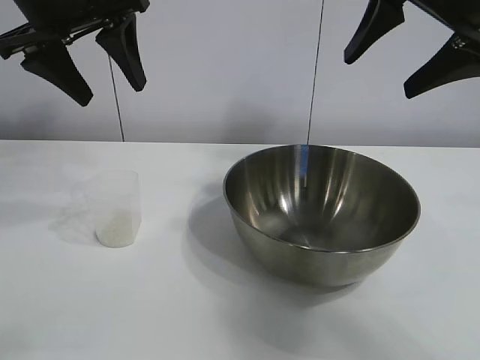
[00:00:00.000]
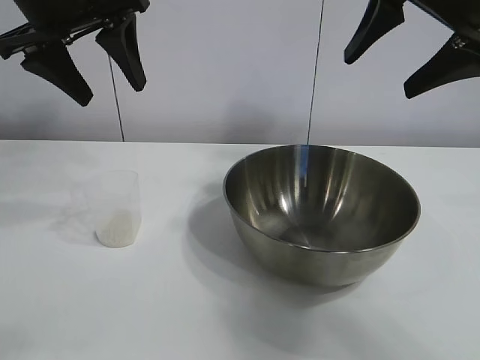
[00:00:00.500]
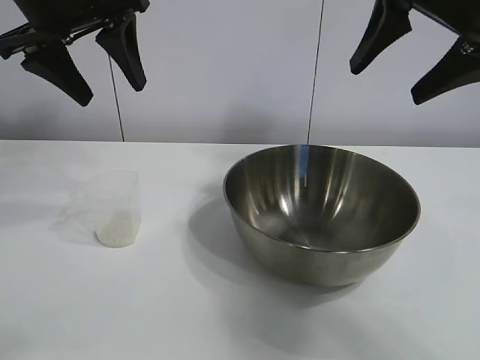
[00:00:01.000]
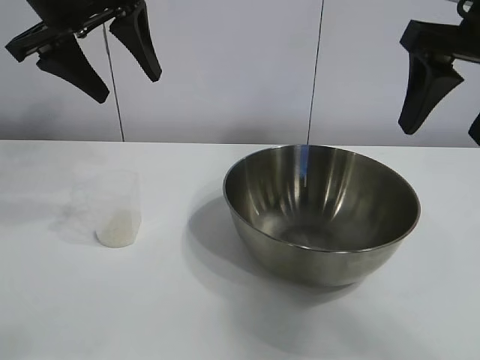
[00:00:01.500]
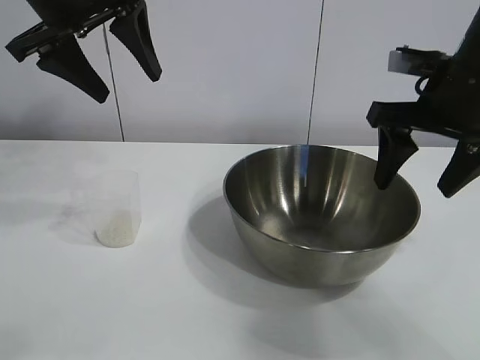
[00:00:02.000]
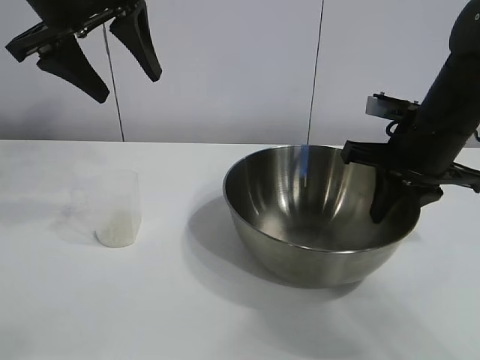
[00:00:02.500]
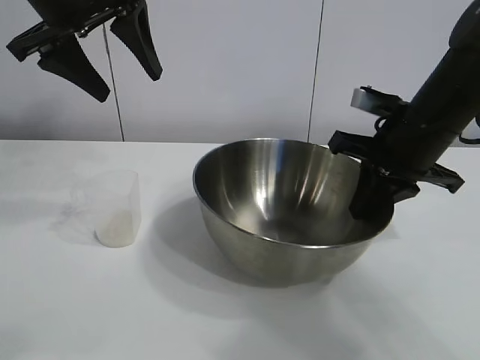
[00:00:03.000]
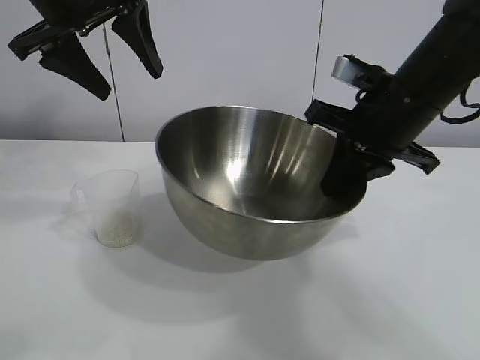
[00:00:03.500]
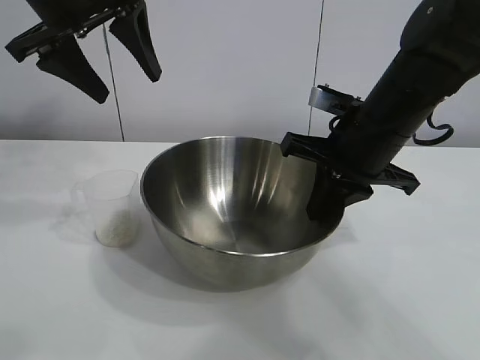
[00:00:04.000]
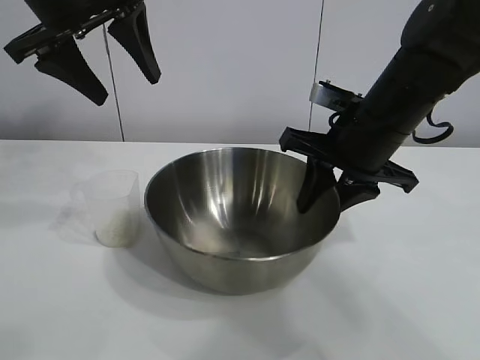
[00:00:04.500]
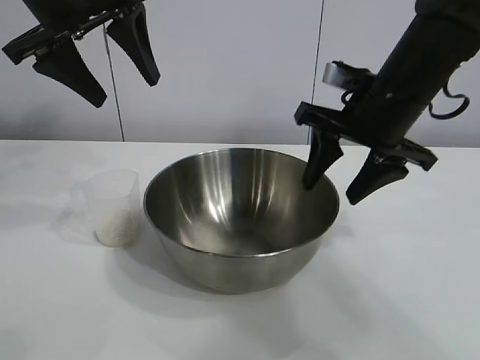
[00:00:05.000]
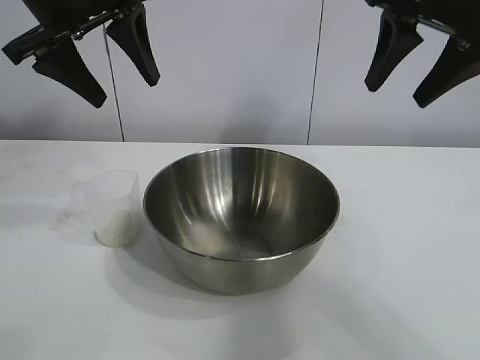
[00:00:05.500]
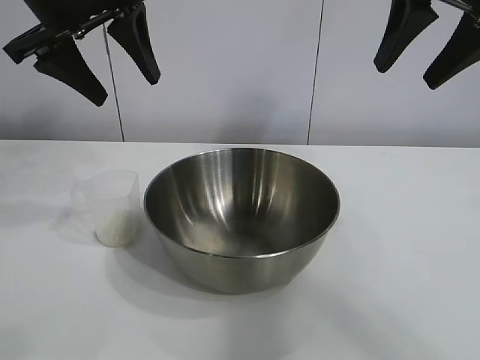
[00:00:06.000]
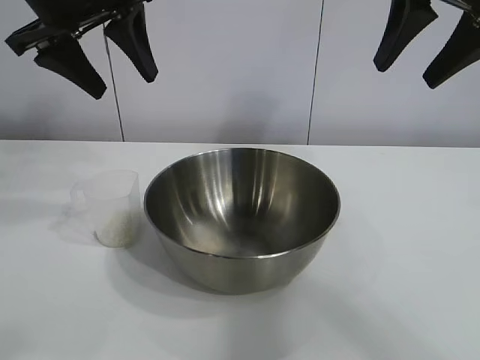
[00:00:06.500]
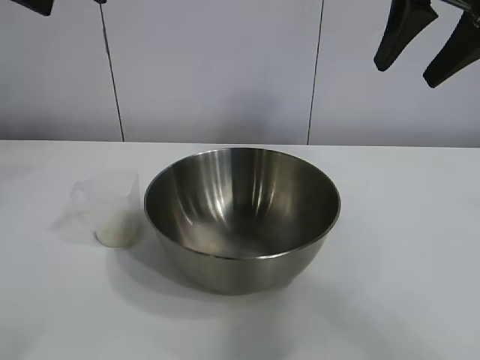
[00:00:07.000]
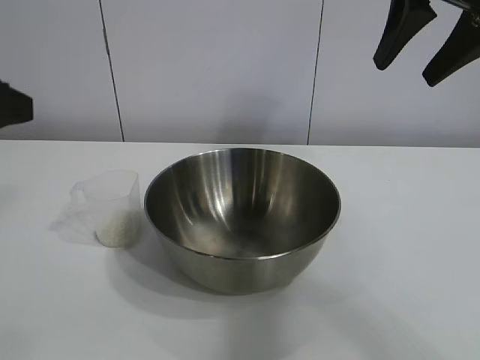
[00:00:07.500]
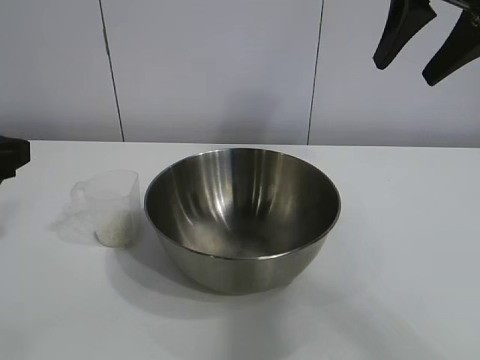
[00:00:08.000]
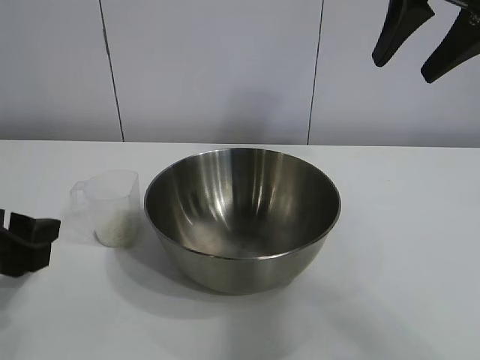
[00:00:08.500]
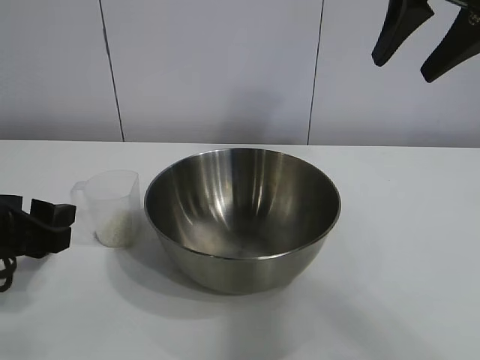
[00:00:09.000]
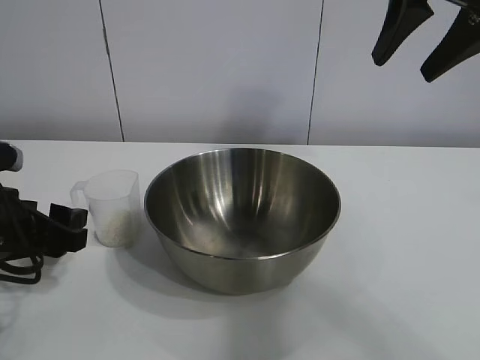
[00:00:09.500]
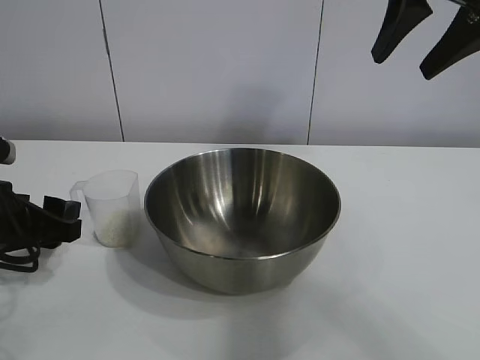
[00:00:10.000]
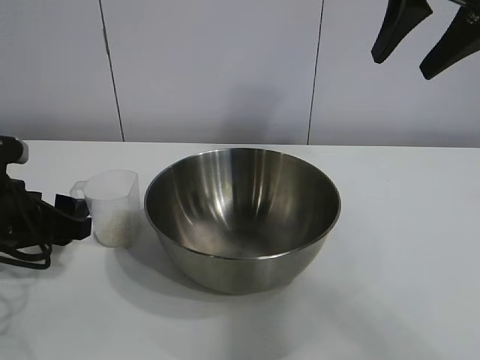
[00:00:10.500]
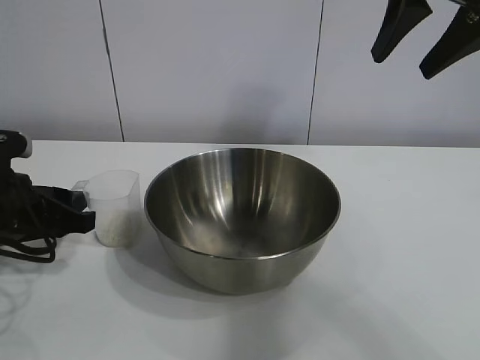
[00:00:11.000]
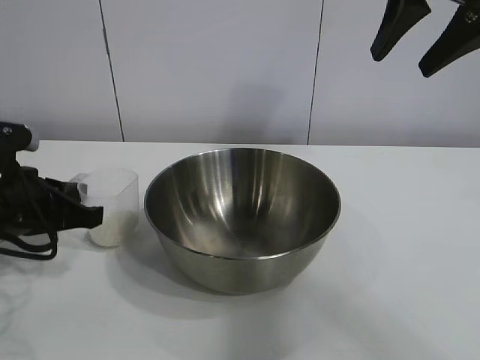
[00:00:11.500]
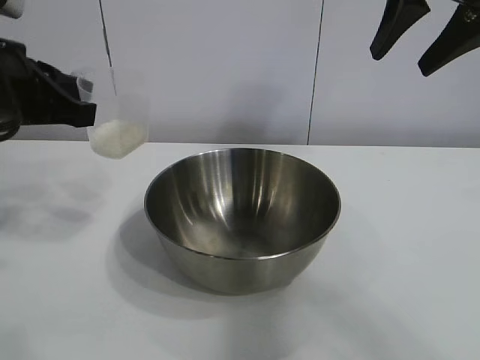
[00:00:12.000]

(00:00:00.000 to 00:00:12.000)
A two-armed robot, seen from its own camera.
Task of the whole recording: the right gripper grasp the rice container and place it in the center of the table, the left gripper grasp the rice scoop and pour the rice into the rice container.
Step, 00:00:01.000 - 00:00:04.500: Move the bowl in the center of view with right gripper.
Step, 00:00:05.000 - 00:00:11.000: Grasp the cup with rice in it with left gripper.

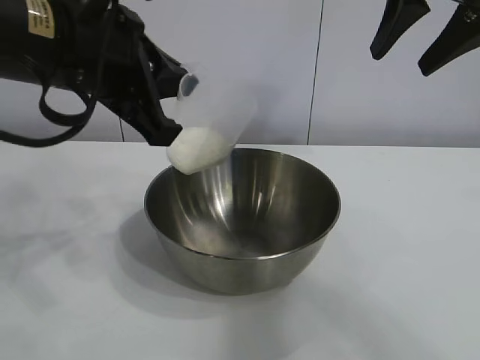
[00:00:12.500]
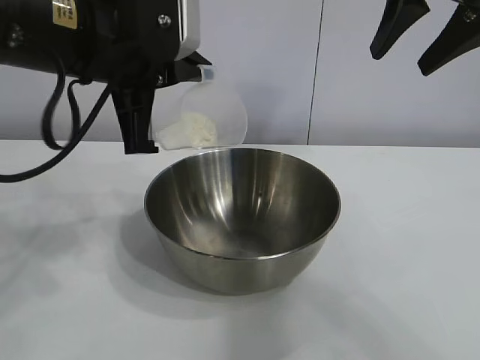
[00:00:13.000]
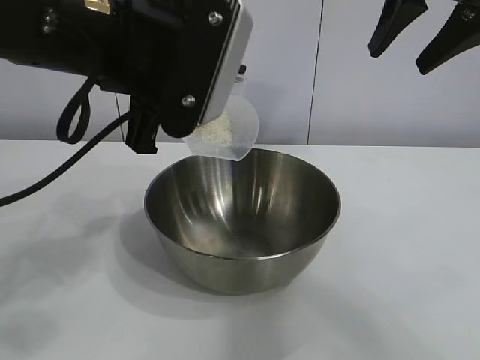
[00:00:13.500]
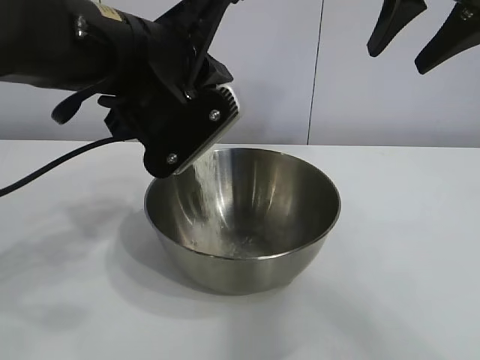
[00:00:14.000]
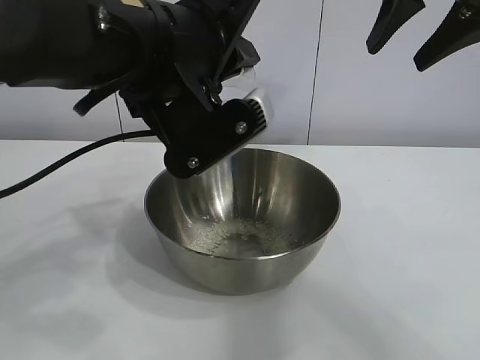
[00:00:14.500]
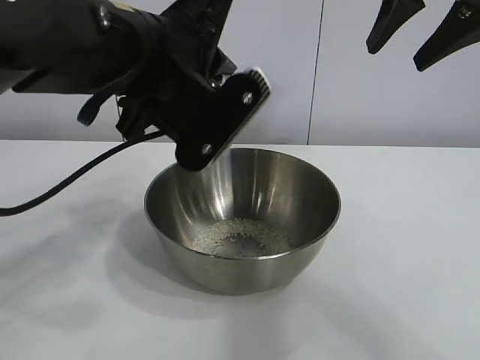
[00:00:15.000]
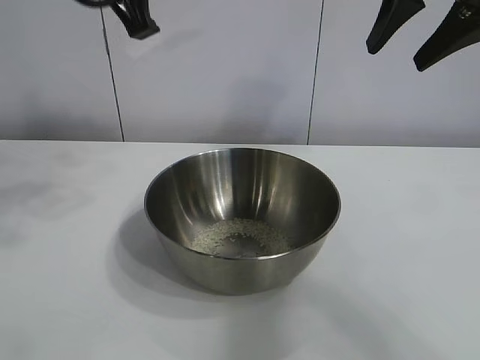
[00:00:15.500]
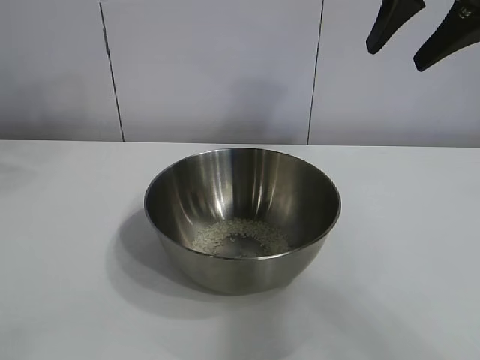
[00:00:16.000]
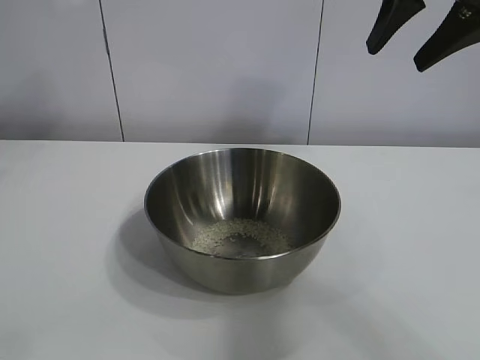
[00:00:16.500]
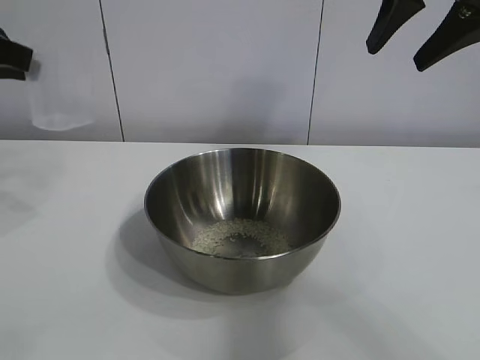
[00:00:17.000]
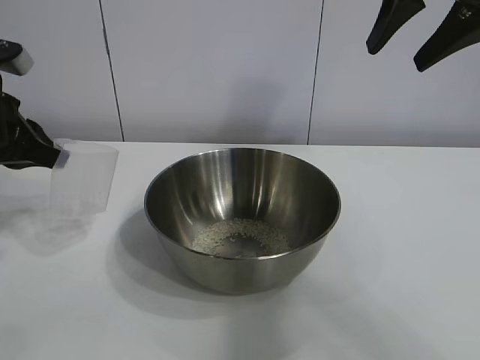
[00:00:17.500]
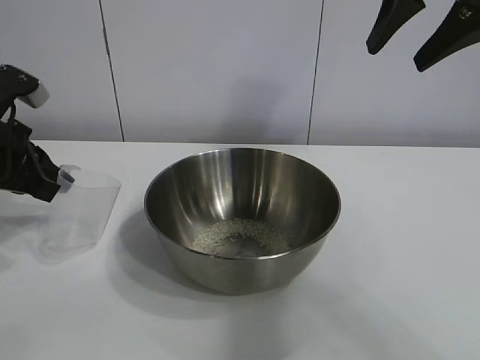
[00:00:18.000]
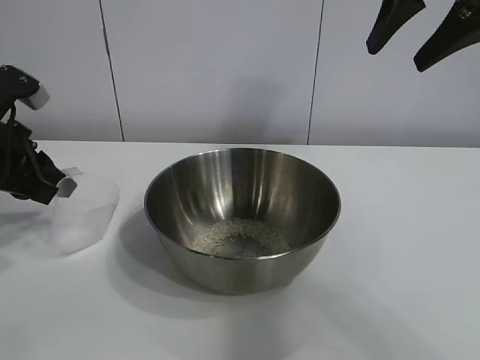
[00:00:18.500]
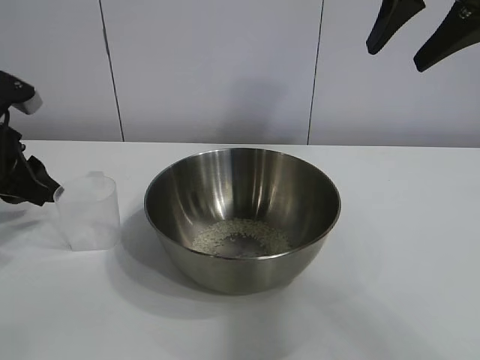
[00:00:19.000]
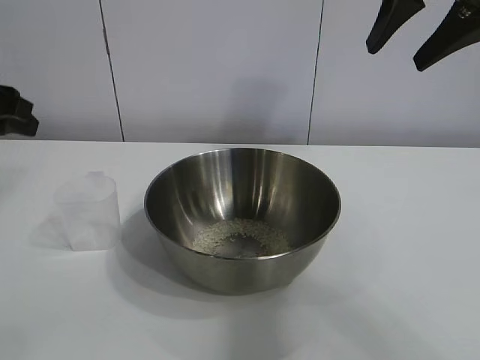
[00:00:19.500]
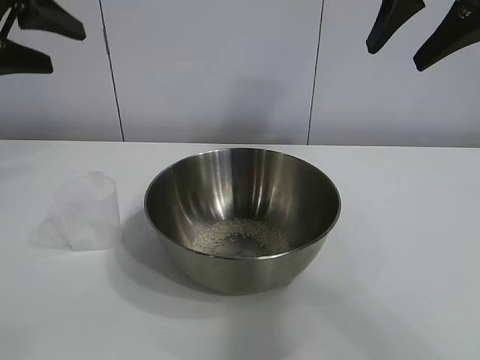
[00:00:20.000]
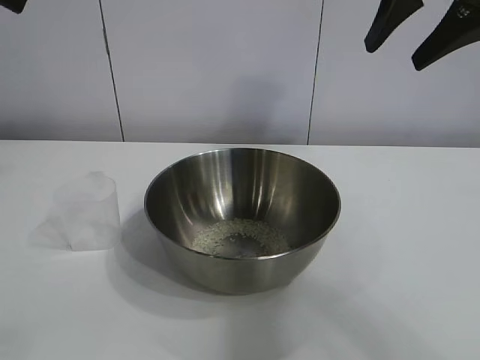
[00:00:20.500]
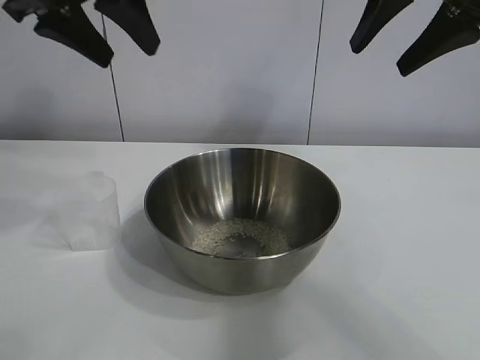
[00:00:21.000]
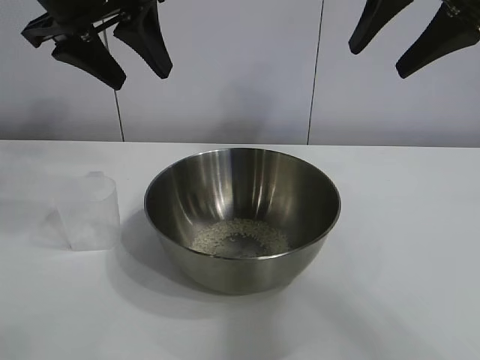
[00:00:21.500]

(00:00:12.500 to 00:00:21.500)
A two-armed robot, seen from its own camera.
Task of the whole recording: the right gripper grasp the rice container and place it in the center of the table, the left gripper grasp the rice scoop and pour the rice into the rice container.
Step, 00:00:12.500 - 00:00:14.500: Pour the rice from the cup into the bowl with the left gripper.
Step, 00:00:15.000 - 00:00:18.500: Place the cup on the table with the left gripper.

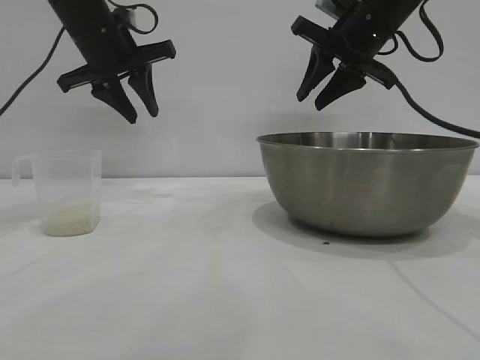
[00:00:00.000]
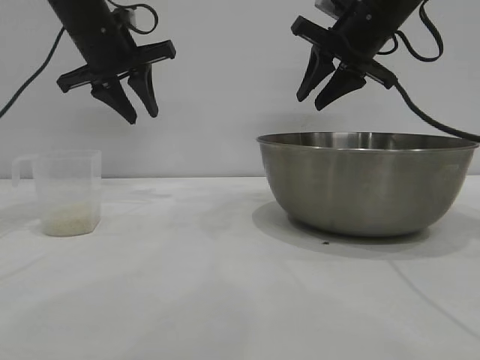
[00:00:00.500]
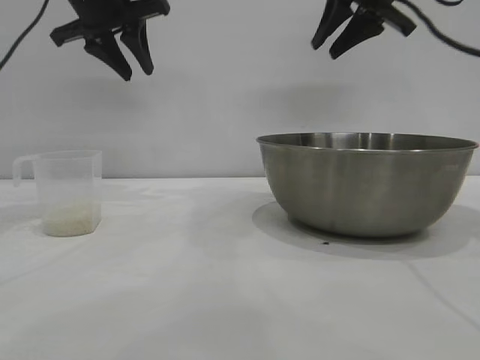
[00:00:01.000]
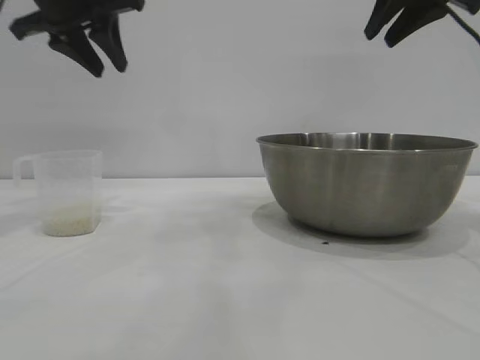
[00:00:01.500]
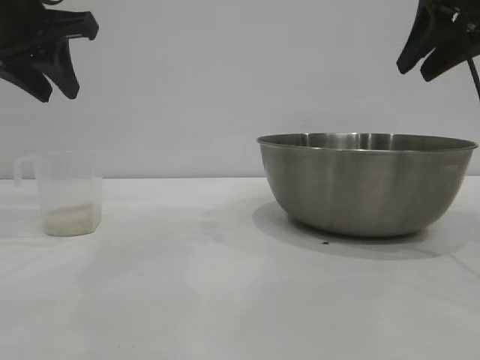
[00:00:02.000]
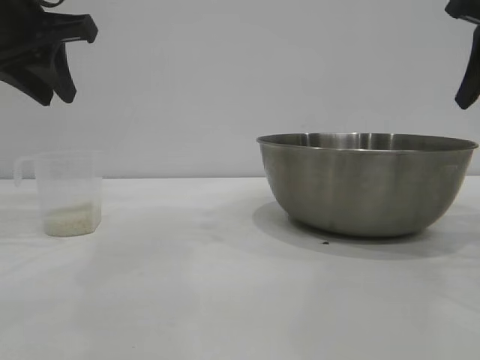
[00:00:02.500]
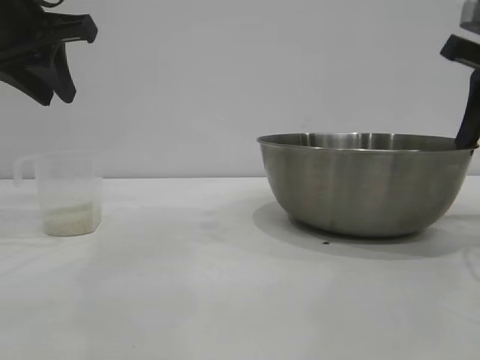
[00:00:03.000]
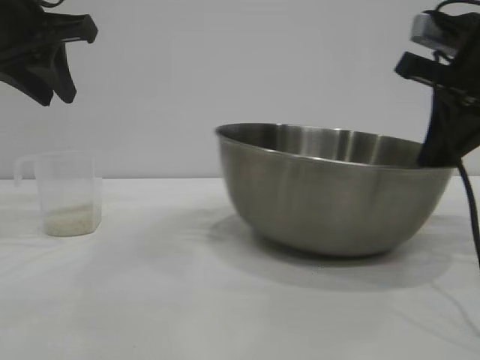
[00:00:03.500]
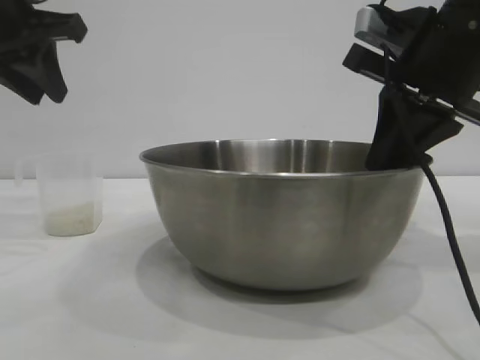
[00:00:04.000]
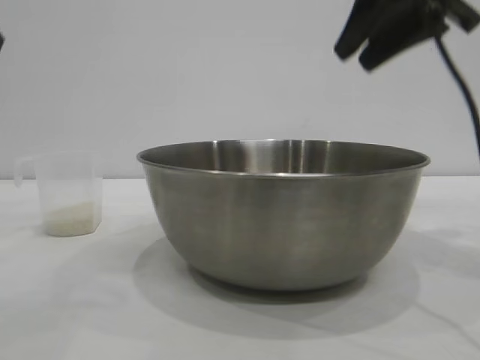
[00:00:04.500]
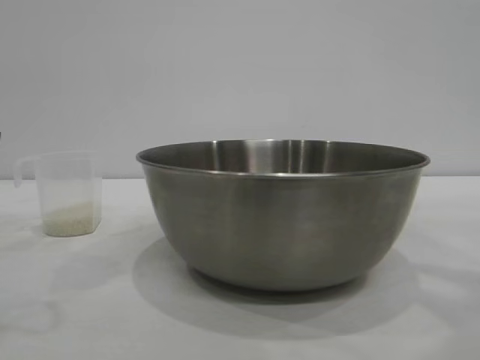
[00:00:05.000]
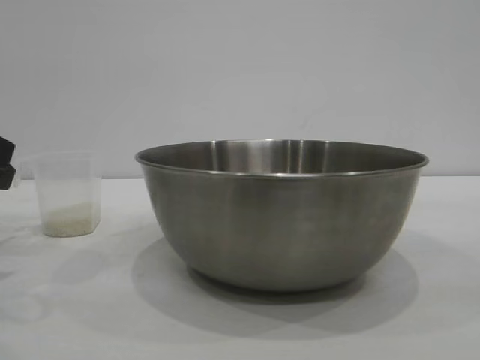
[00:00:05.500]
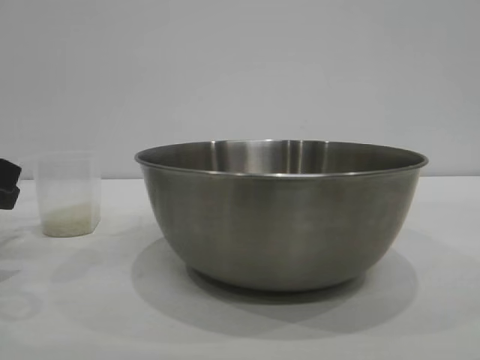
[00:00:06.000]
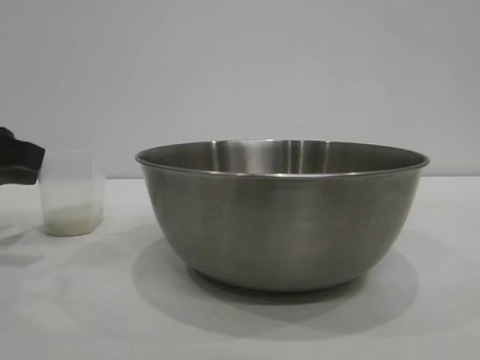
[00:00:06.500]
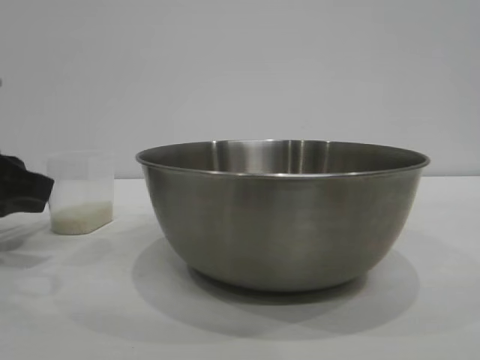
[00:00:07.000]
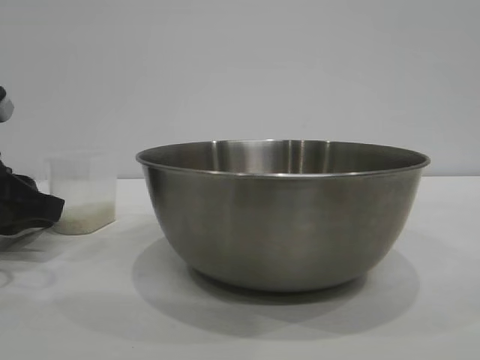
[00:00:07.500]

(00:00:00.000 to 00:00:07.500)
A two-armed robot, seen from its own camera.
Task of the whole recording: the right gripper grasp the rice container and place it in the center of the table, the left gripper grasp the rice scoop and pour the rice into the rice container.
Step, 00:00:00.000 - 00:00:04.000: Move the bowl to the center of view with the right gripper.
